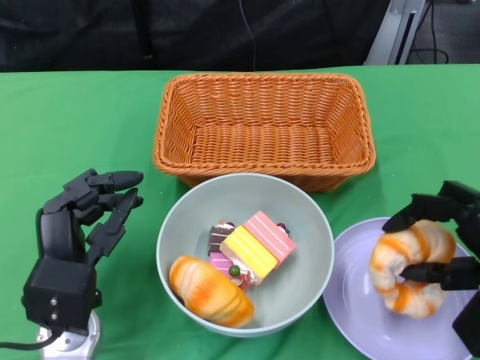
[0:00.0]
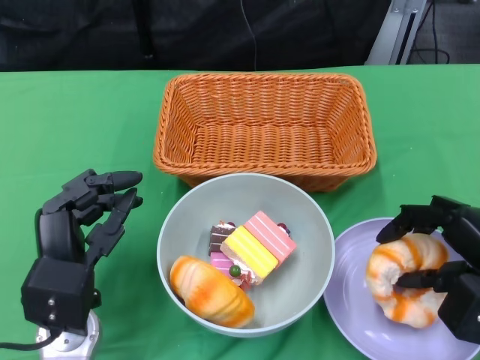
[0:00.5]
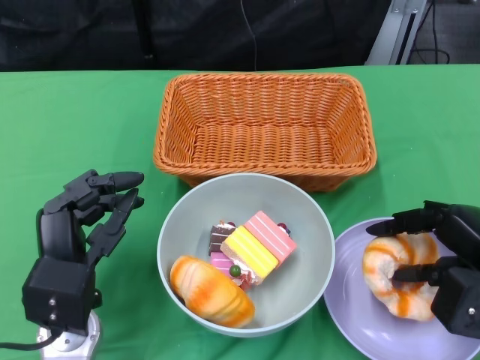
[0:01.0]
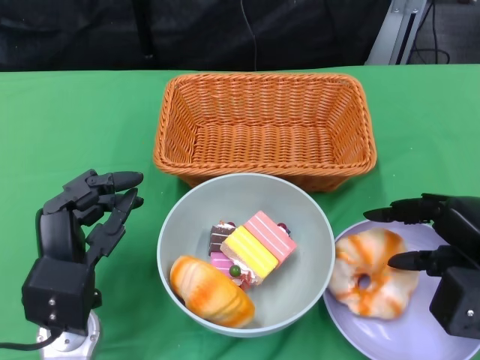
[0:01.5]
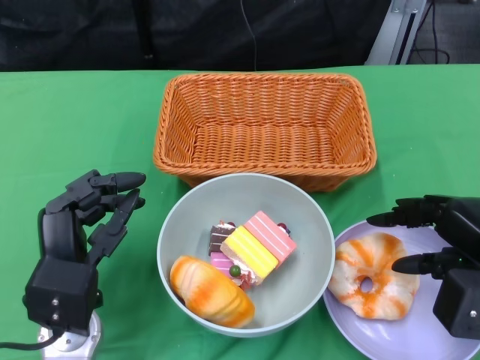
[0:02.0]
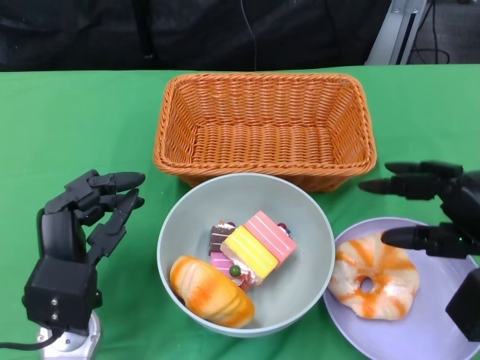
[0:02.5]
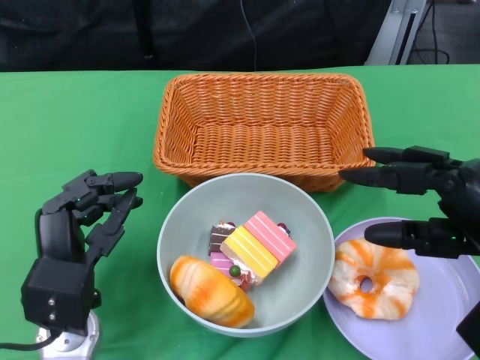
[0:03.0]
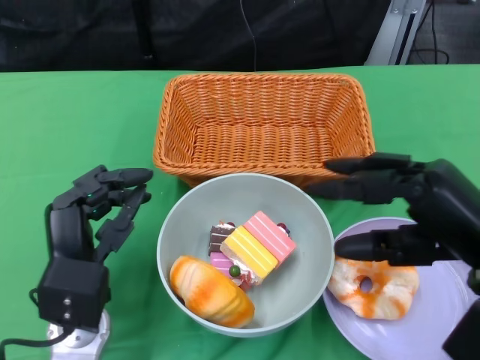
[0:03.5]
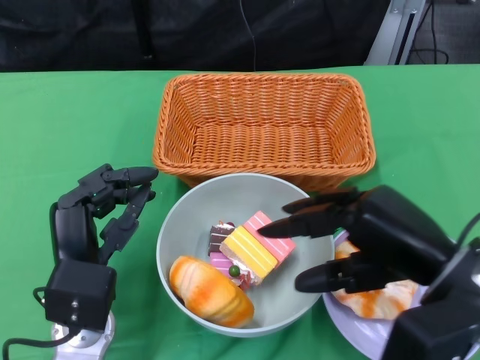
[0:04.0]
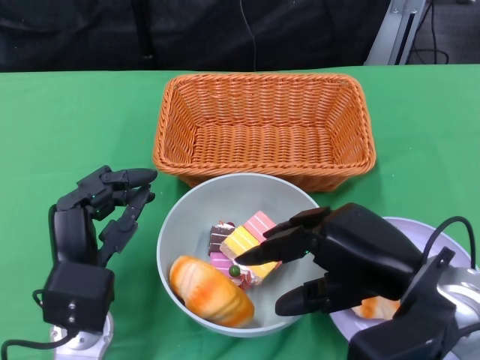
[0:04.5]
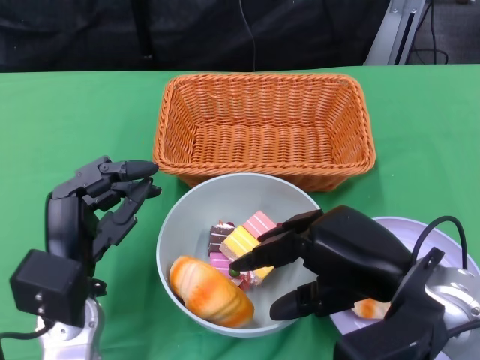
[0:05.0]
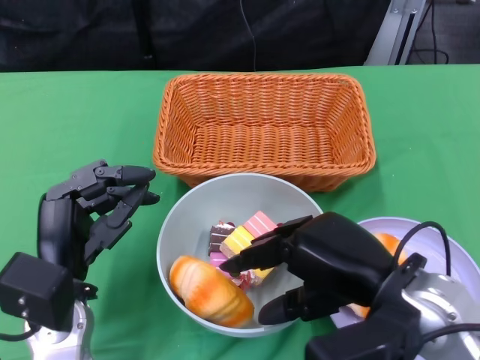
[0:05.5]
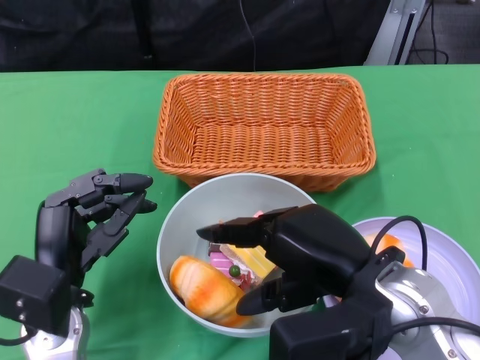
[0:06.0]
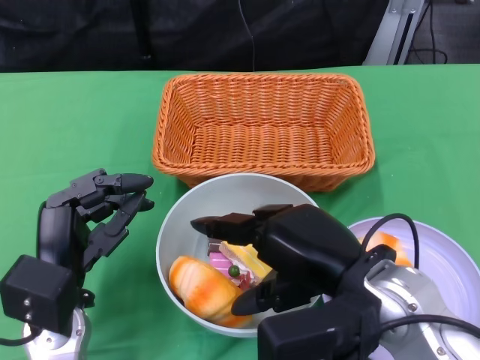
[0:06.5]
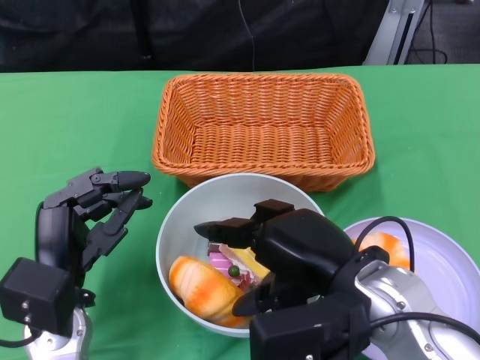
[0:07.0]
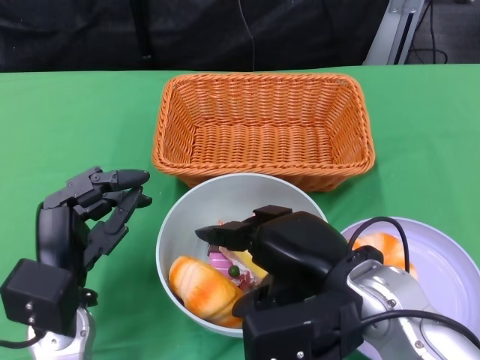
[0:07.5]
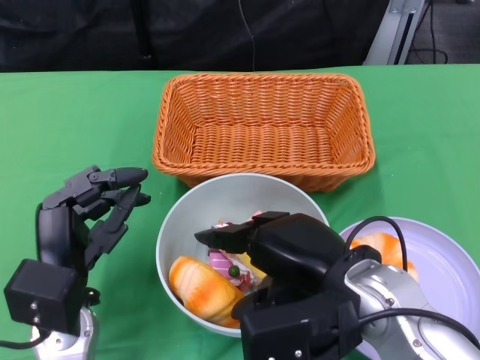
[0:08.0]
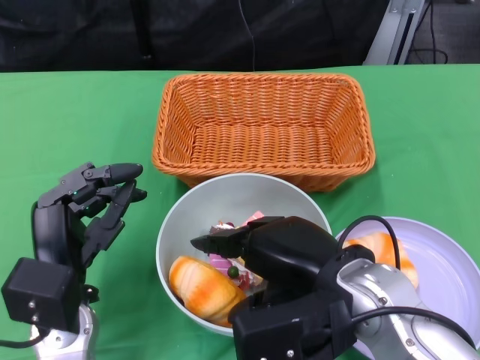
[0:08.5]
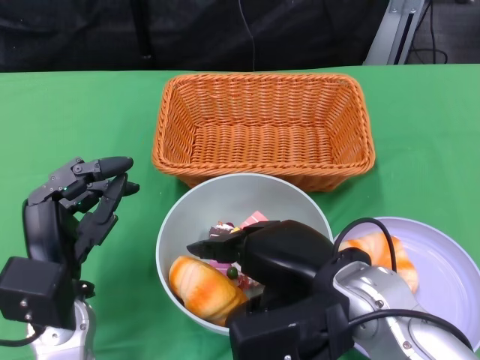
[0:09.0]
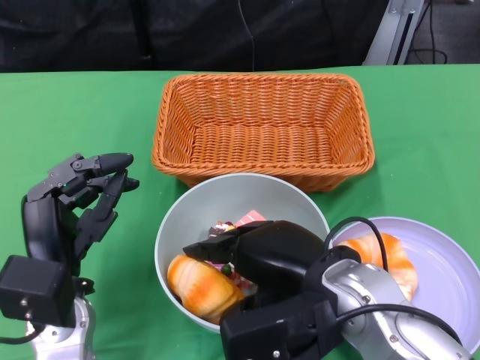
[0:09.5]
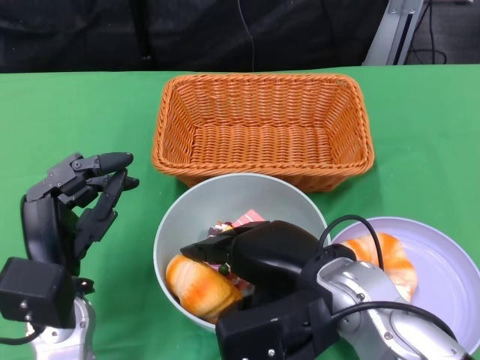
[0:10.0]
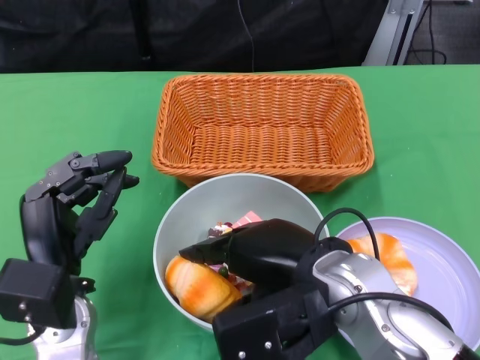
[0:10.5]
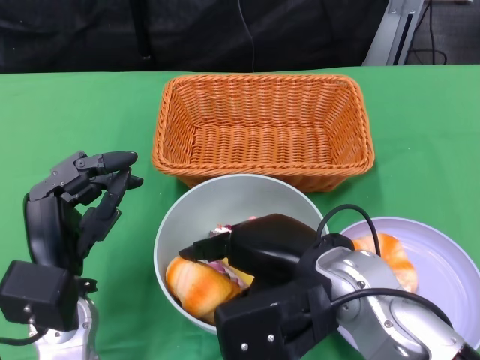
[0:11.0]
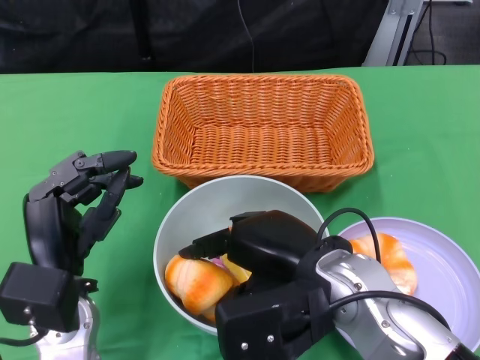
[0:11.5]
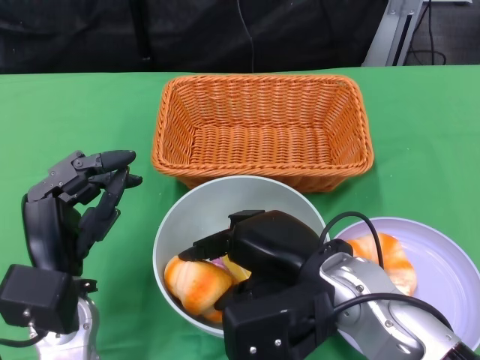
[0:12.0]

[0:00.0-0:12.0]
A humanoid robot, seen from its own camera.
0:00.0 to 0:02.0: The hands stay close to where they were, moving slightly.
0:02.0 to 0:04.0: The right hand shifts roughly 10 cm to the left and upward.
0:04.0 to 0:06.0: The right hand shifts approximately 5 cm to the left.
0:06.0 to 0:10.0: The hands move only a little.
0:10.0 to 0:12.0: The hands move only a little.

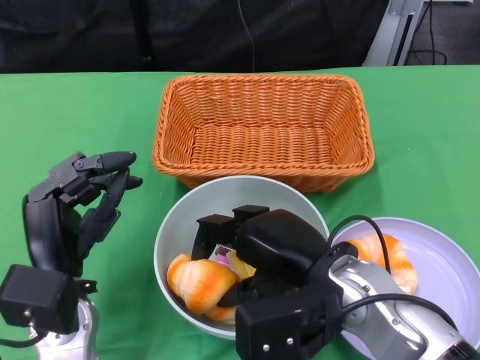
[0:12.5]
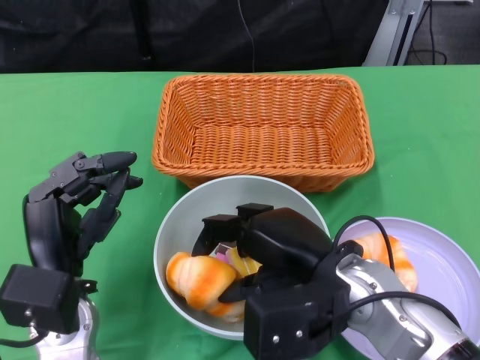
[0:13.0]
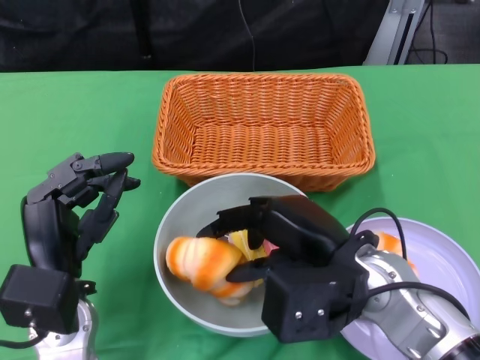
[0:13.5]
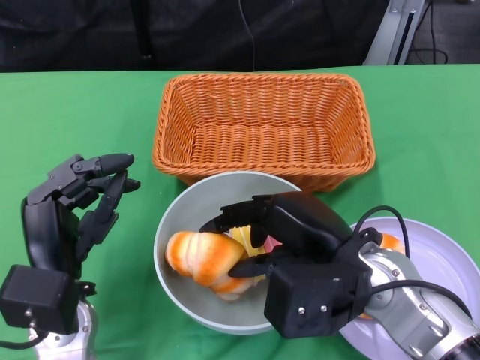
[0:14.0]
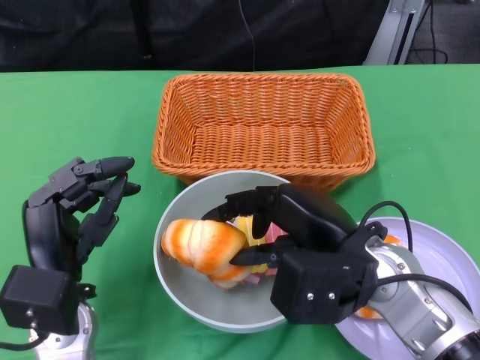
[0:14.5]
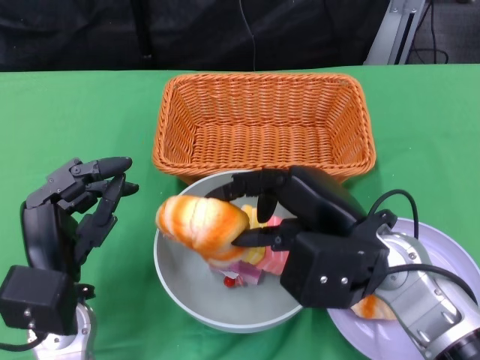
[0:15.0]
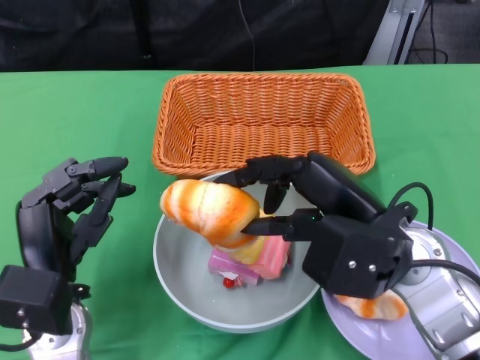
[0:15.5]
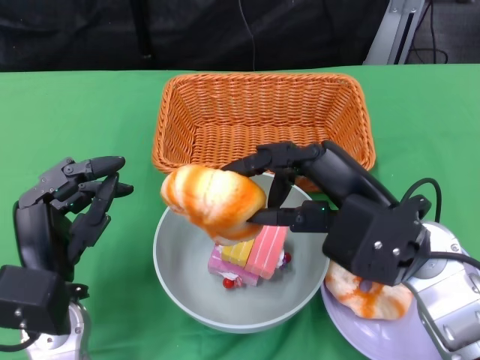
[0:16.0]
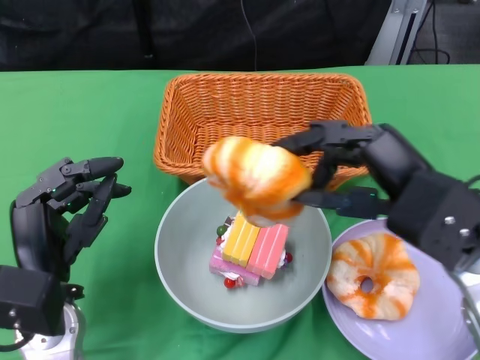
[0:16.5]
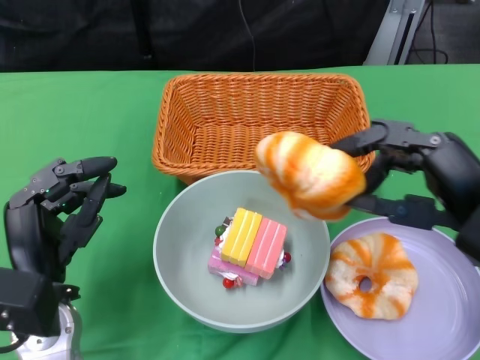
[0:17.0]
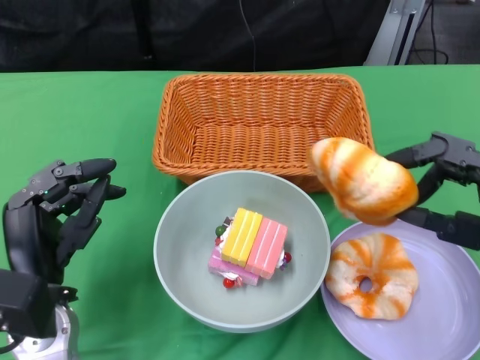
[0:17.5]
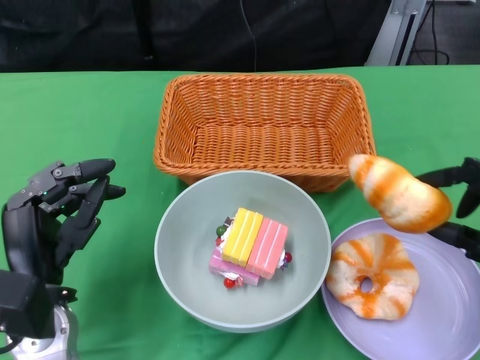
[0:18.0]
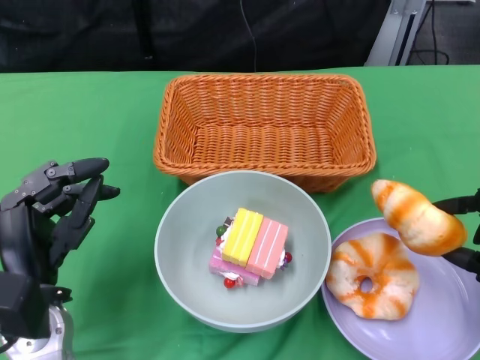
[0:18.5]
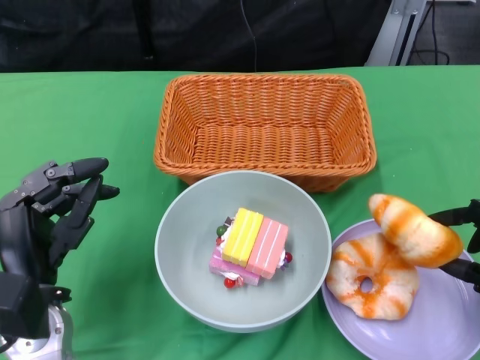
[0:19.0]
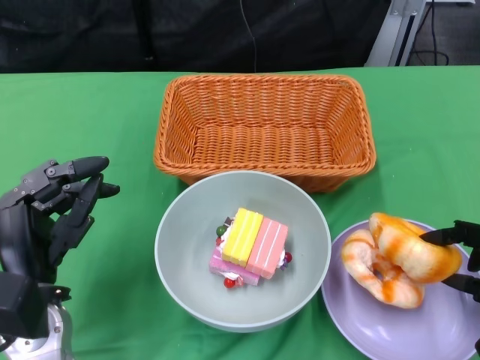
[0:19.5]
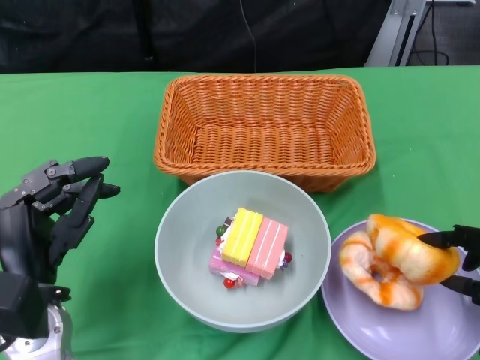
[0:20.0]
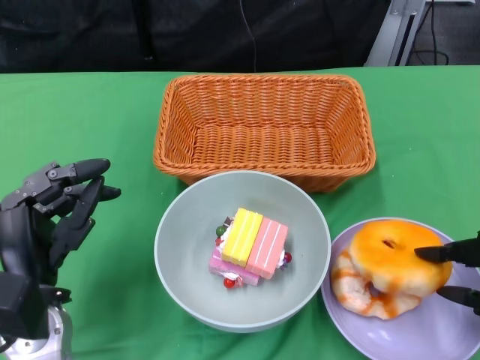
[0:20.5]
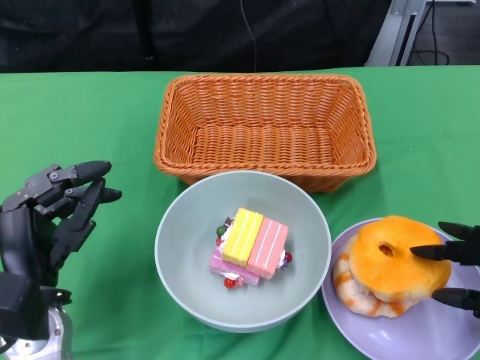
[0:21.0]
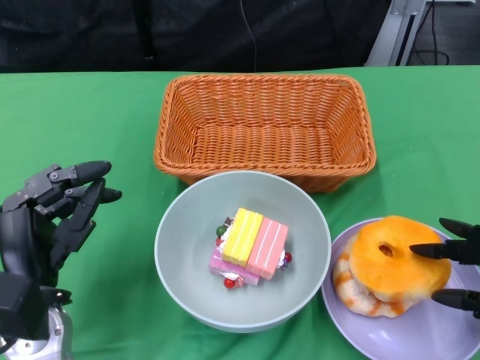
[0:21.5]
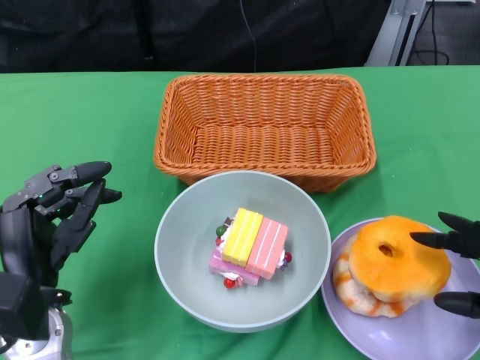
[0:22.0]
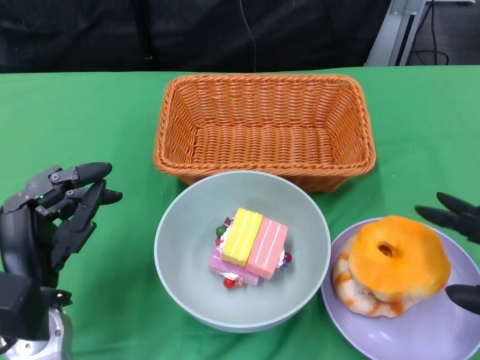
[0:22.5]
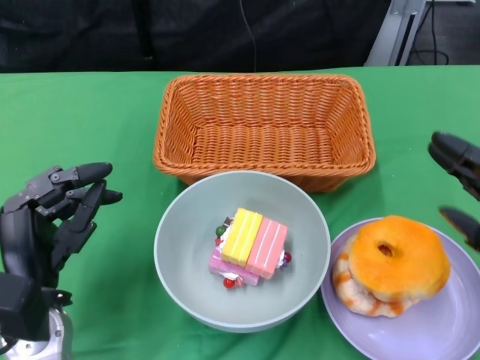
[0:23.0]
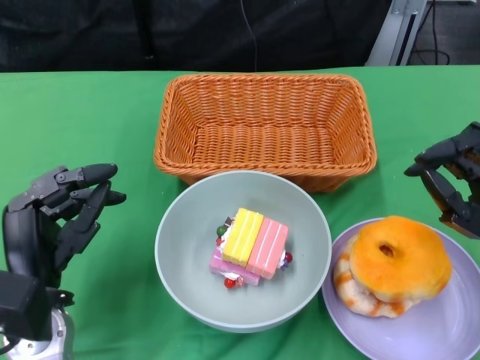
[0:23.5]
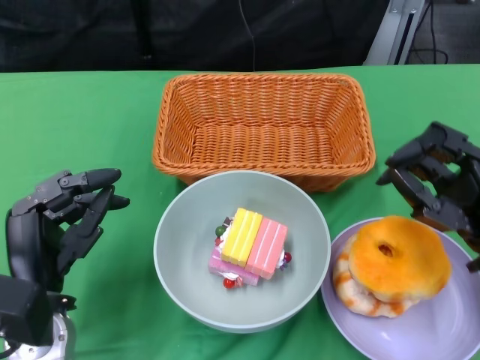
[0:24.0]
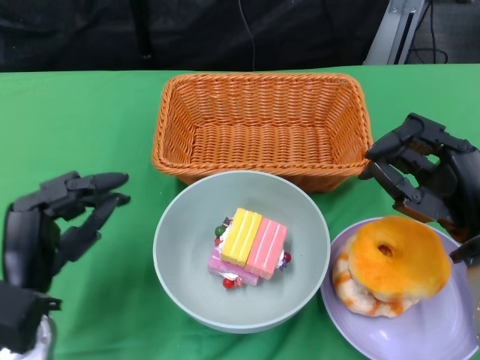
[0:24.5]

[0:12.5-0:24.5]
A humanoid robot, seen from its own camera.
Step, 0:12.5 to 0:23.0: Pick up the bread with the right gripper and place it on the plate.
0:14.5 to 0:16.5: The right hand moves to the right and upward, roughly 10 cm.
0:16.5 to 0:18.5: The right hand moves to the right, downward and backward, approximately 15 cm.
0:18.5 to 0:20.5: The hands stay close to where they were, moving slightly.
0:20.5 to 0:22.5: The hands stay close to where they were, moving slightly.
0:22.5 to 0:24.5: The right hand travels to the left and forward by roughly 10 cm.

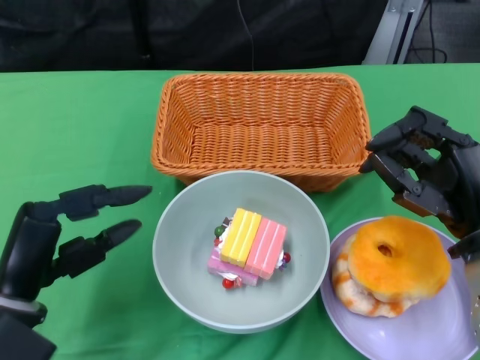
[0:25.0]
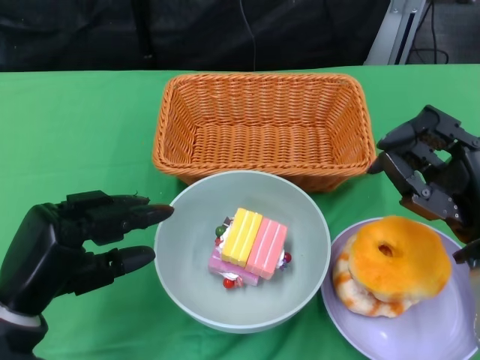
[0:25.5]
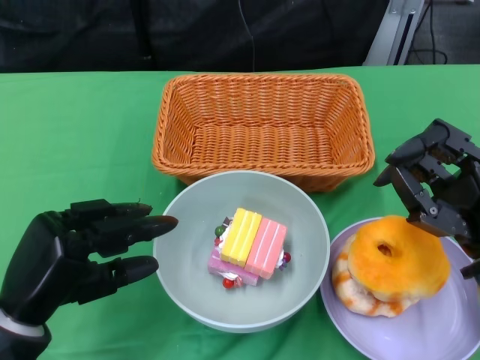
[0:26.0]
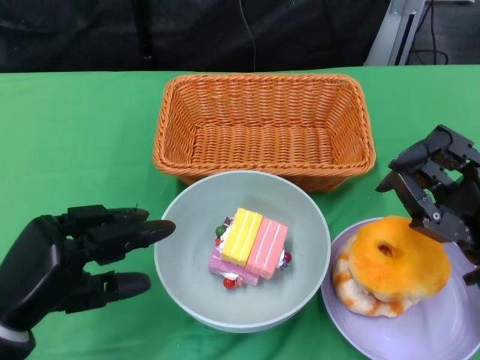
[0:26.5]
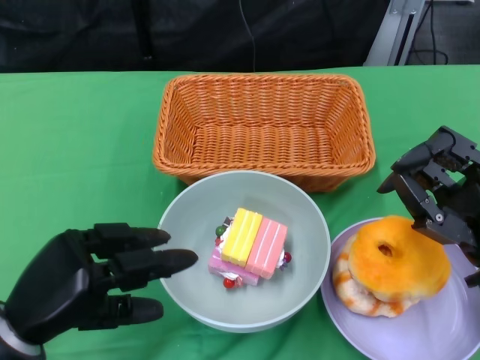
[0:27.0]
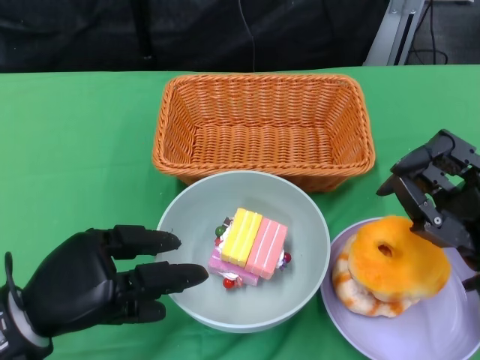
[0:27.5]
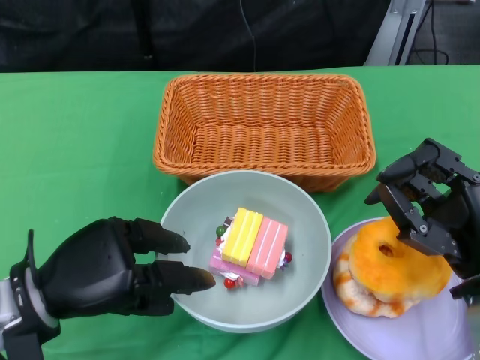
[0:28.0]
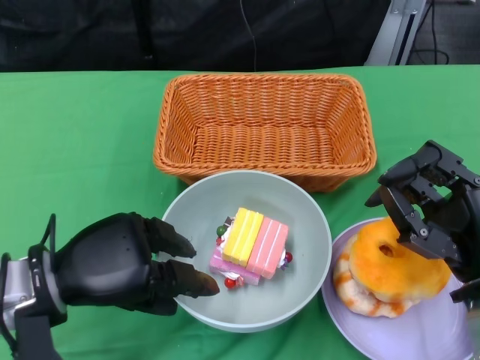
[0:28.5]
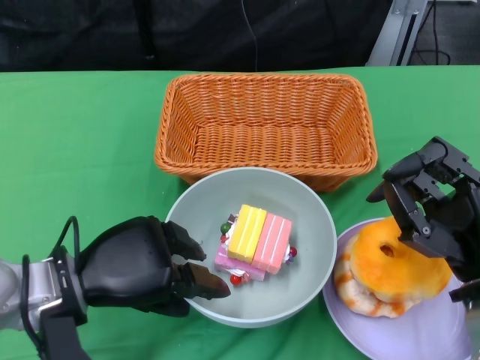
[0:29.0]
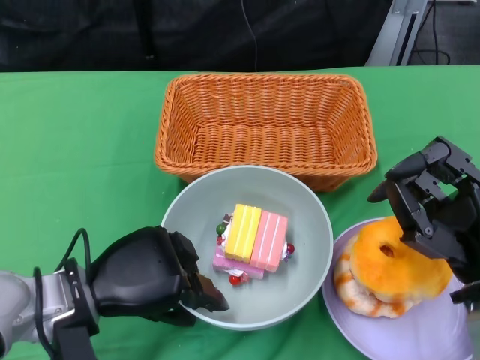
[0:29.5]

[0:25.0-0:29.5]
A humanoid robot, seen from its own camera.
0:27.0 to 0:29.5: The left hand moves to the right, about 5 cm.
